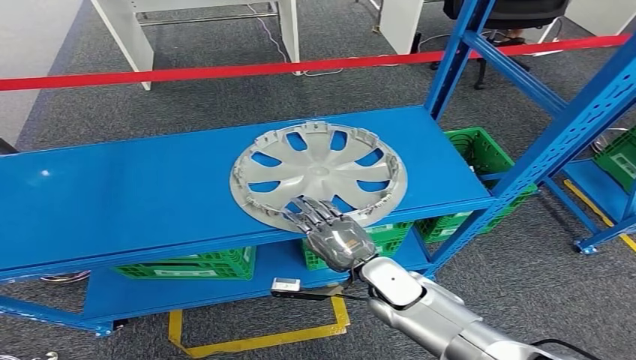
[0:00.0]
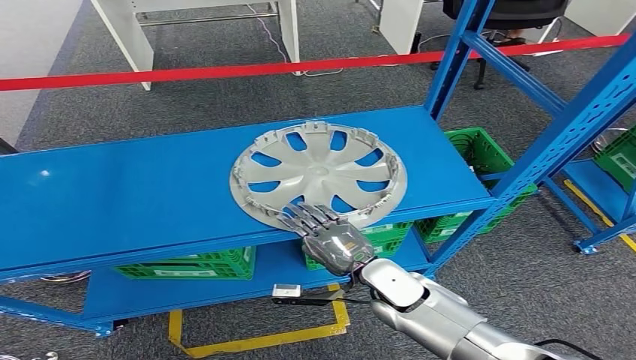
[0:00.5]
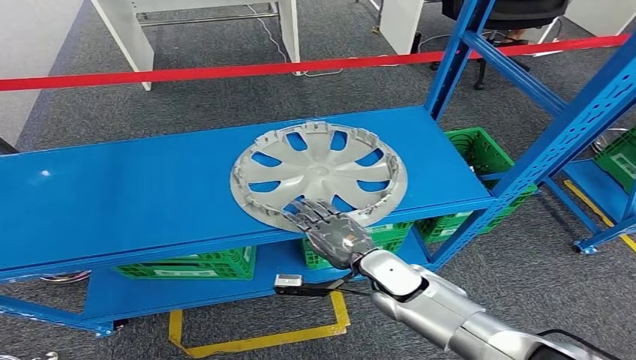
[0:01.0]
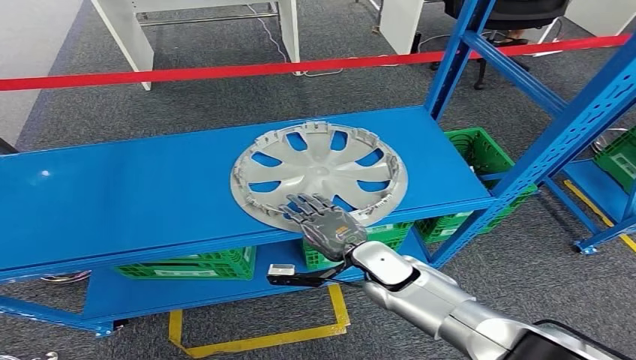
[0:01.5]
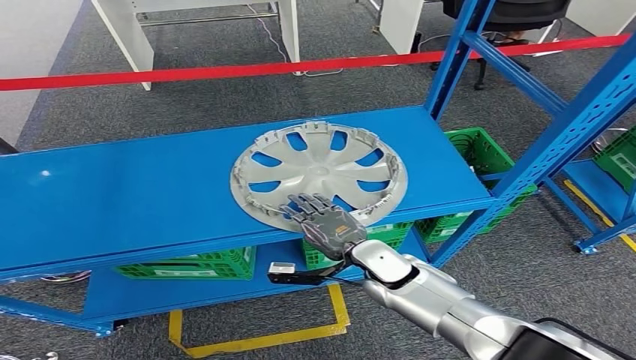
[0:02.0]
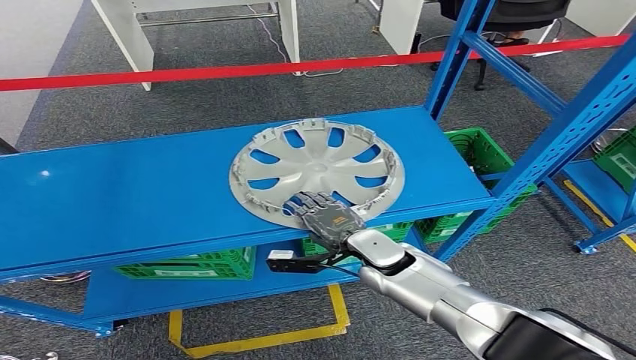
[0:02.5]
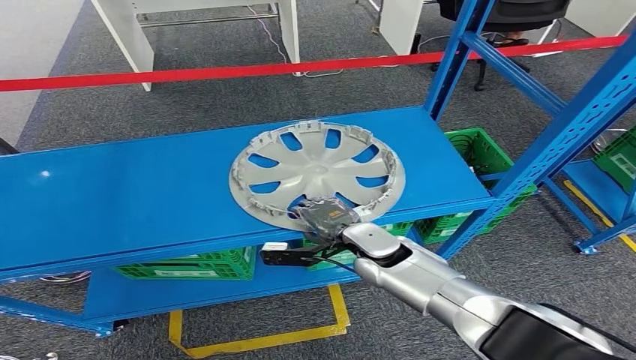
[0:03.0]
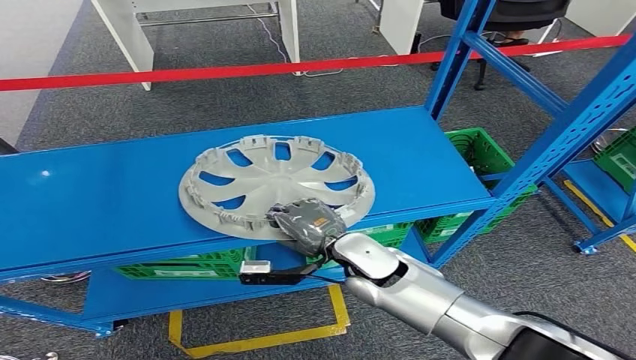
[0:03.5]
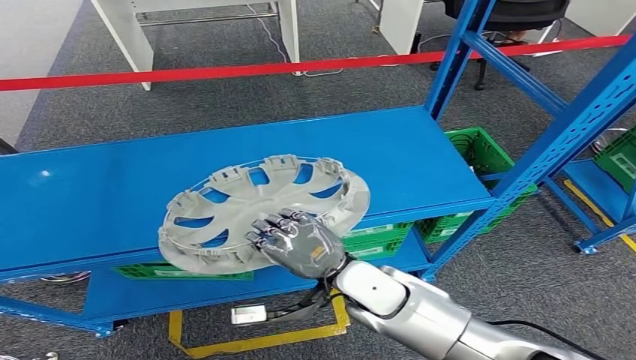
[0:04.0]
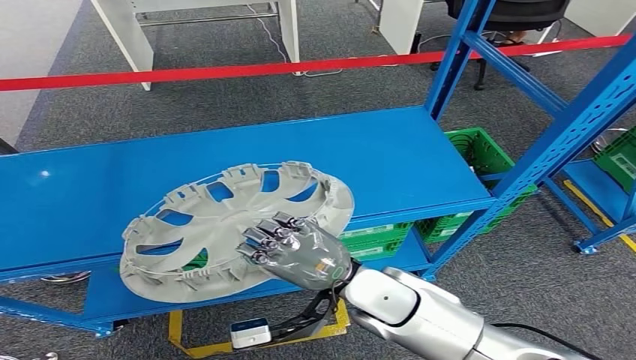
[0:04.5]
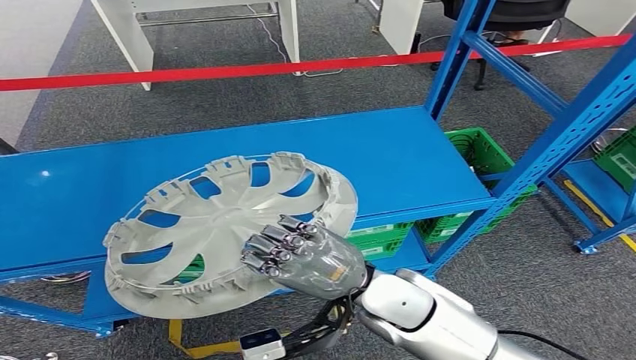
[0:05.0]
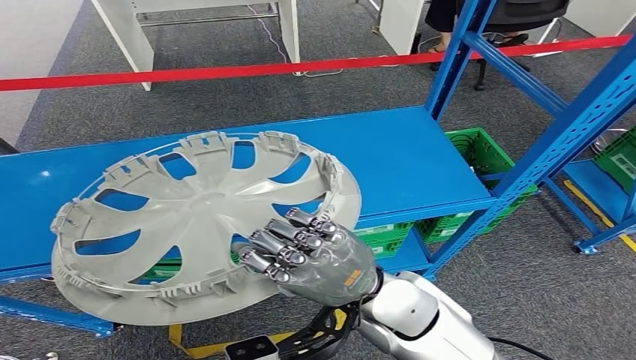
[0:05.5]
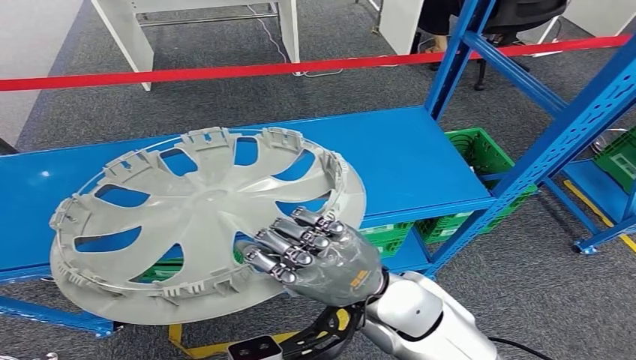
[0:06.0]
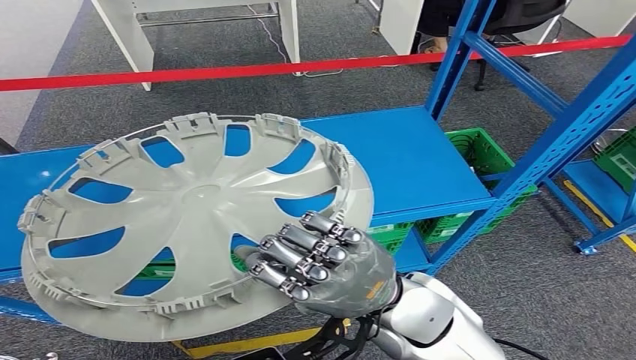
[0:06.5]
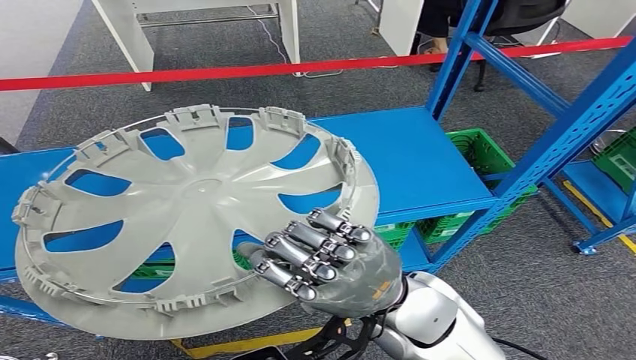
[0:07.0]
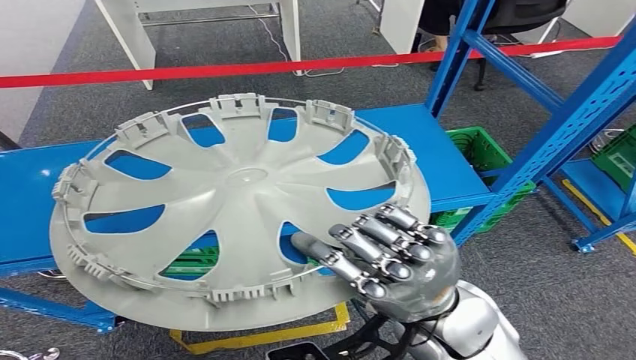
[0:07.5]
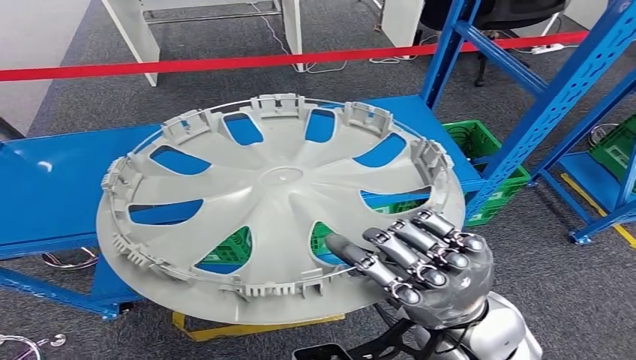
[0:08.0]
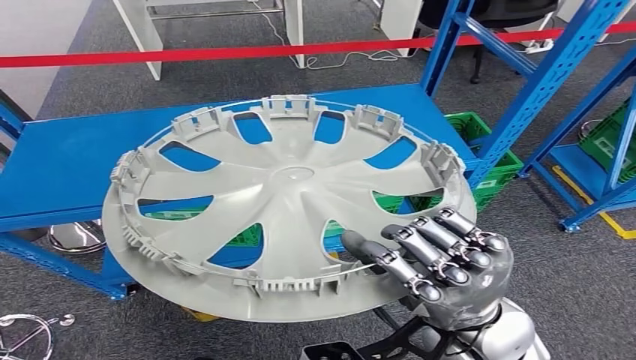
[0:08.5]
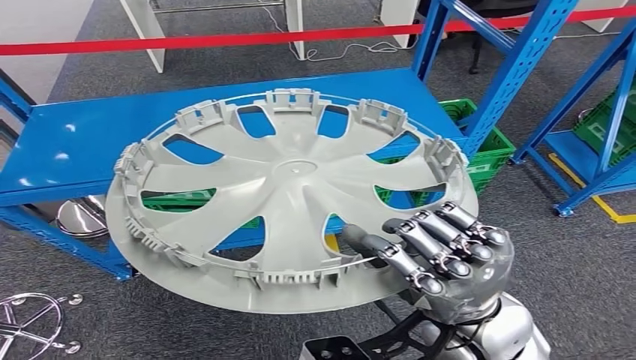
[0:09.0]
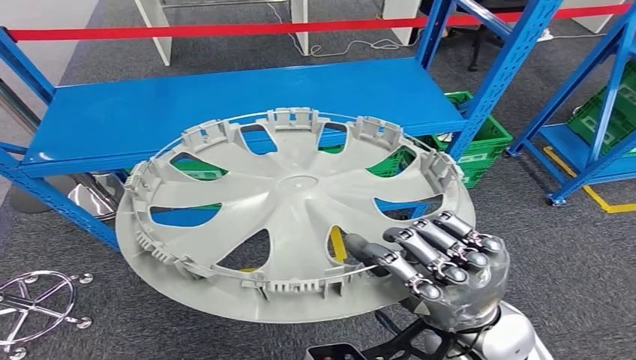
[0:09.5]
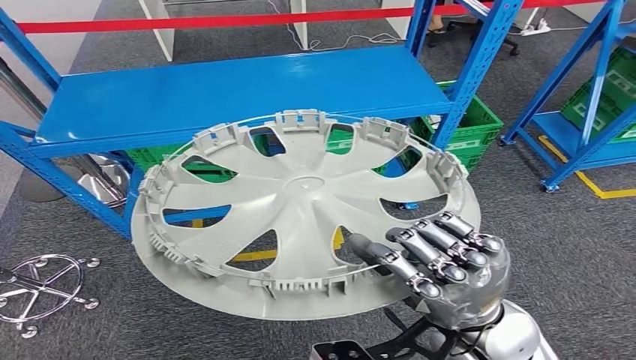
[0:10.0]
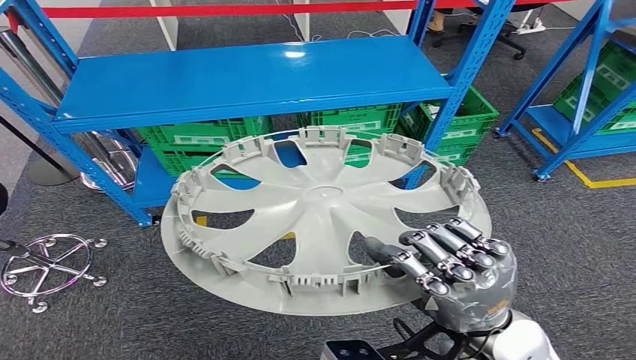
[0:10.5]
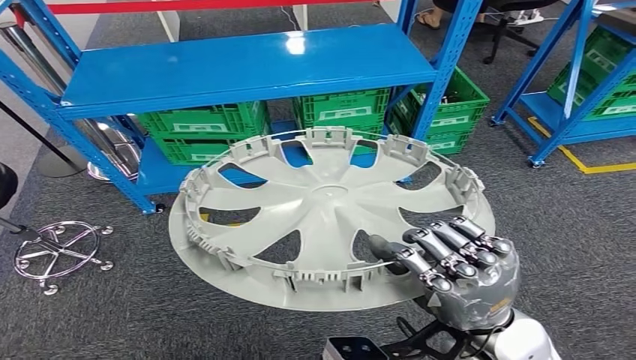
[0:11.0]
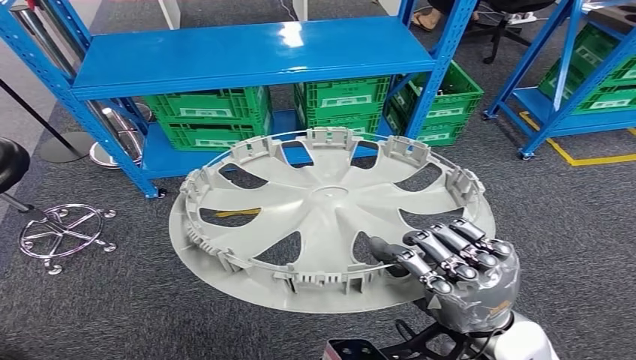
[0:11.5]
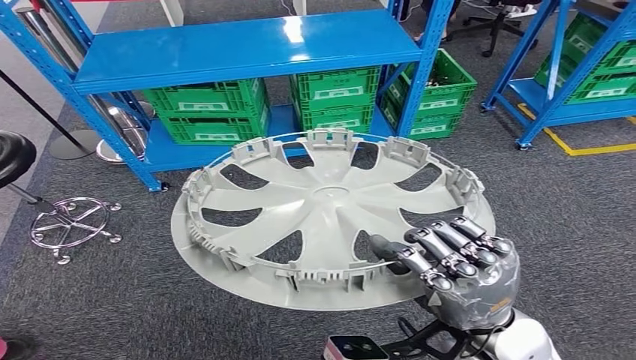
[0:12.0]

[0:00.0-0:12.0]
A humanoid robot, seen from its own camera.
Step, 0:00.0 to 0:08.0: Pick up the small parts from the shelf.
0:00.0 to 0:02.0: The hands move only a little.
0:02.0 to 0:04.0: The right hand moves upward and backward, roughly 10 cm.

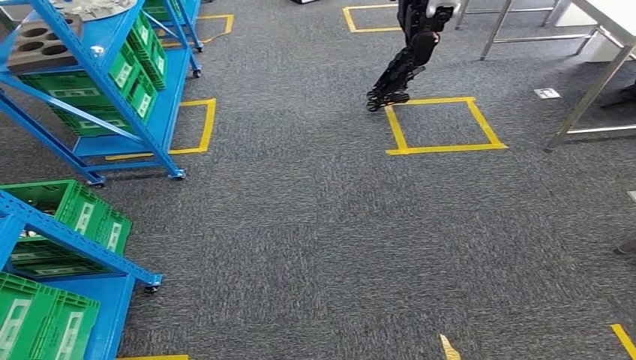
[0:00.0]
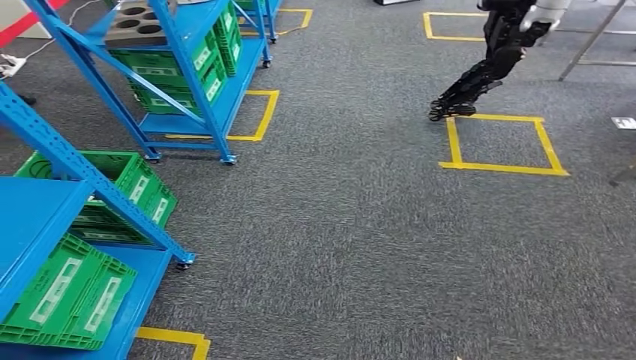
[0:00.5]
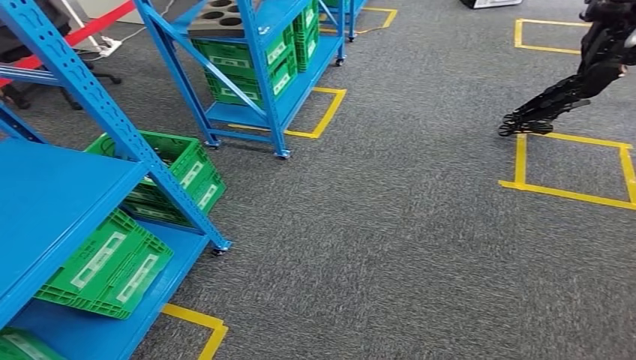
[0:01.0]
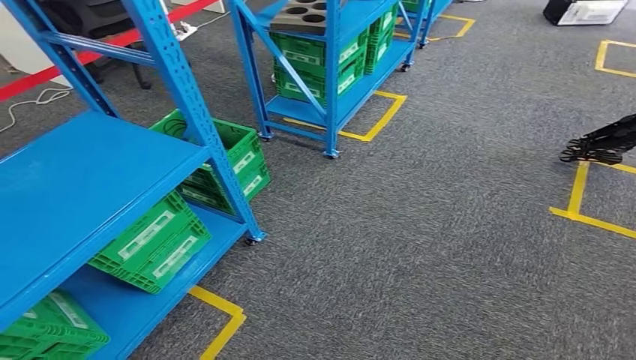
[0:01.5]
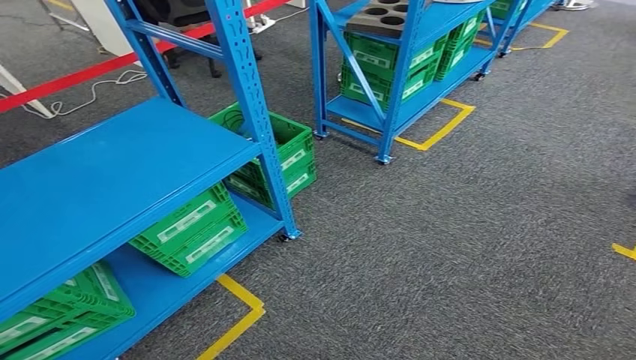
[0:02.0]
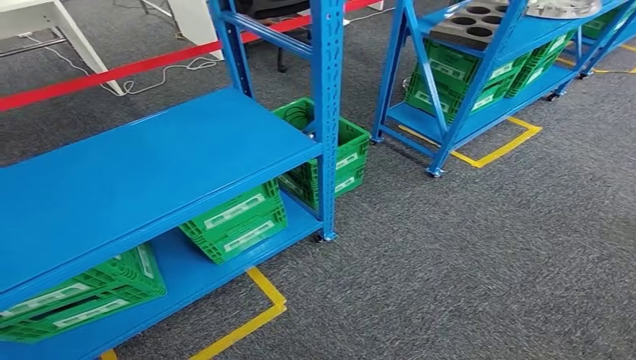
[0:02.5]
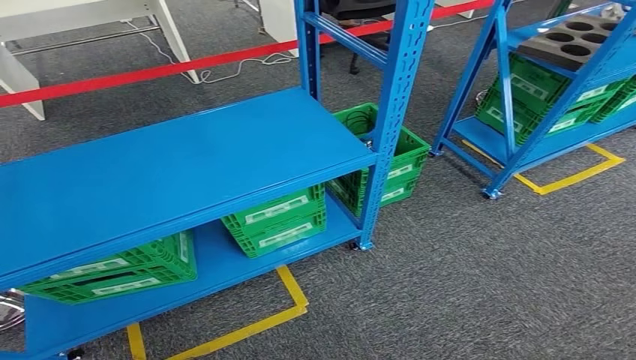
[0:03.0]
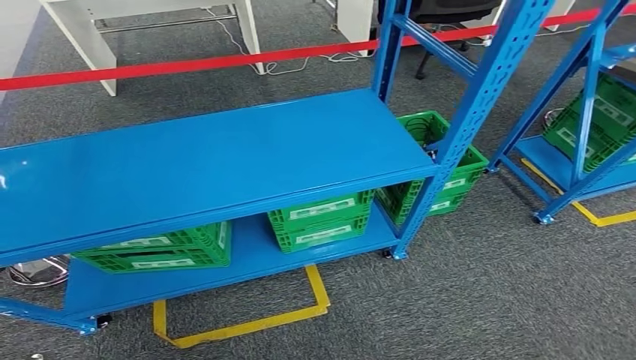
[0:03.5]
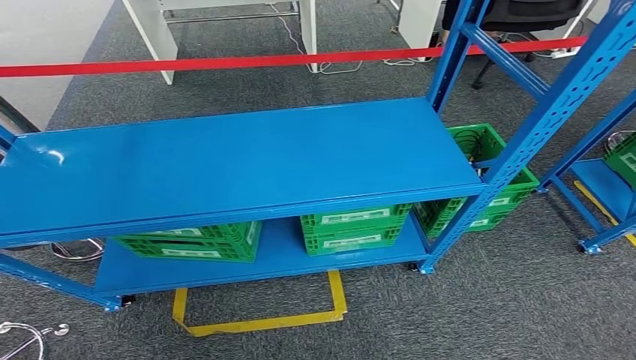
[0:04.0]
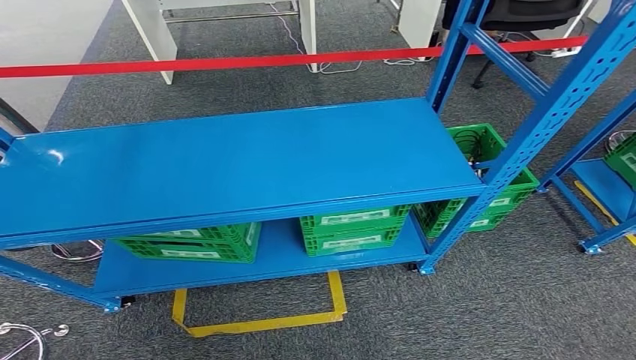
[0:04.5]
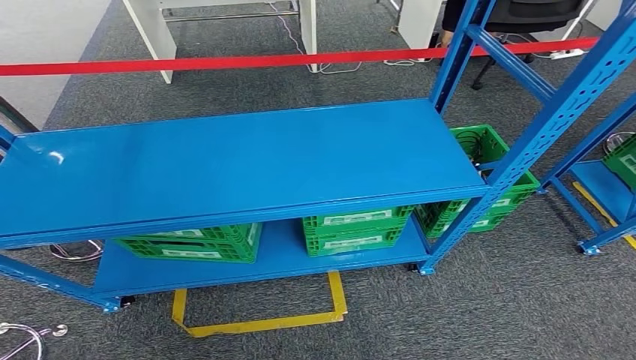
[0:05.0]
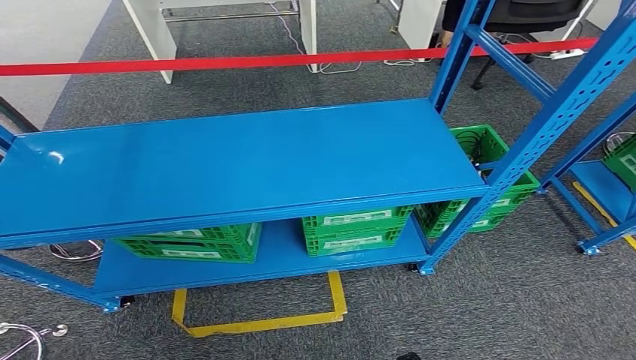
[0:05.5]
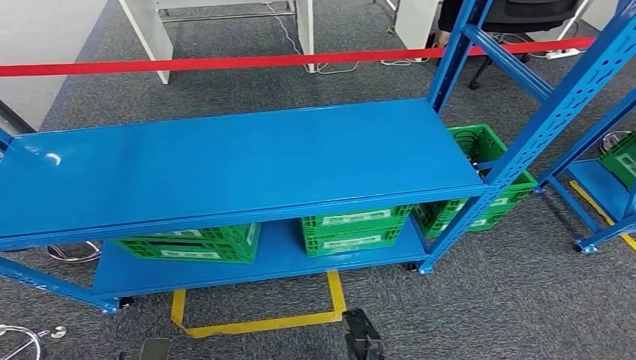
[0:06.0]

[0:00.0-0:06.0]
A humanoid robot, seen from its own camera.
Step, 0:00.0 to 0:06.0: Move to the initial position at the workbench.
0:04.0 to 0:06.0: The right hand is displaced to the left and forward by about 15 cm, while the left hand shifts approximately 5 cm forward.
